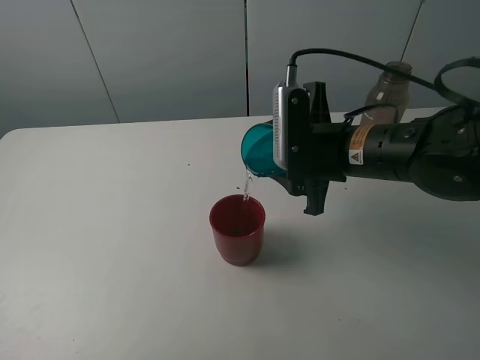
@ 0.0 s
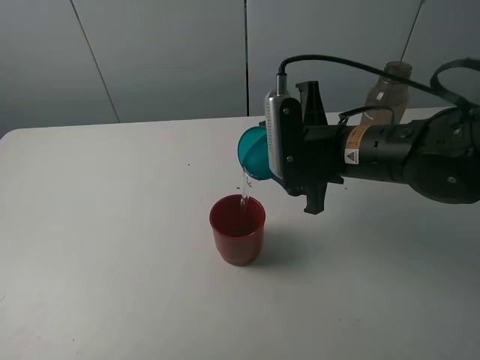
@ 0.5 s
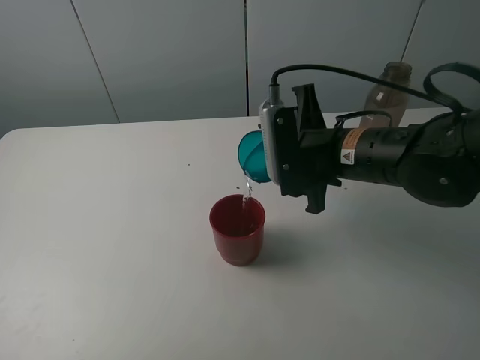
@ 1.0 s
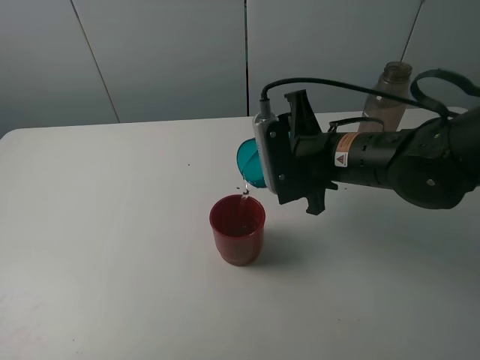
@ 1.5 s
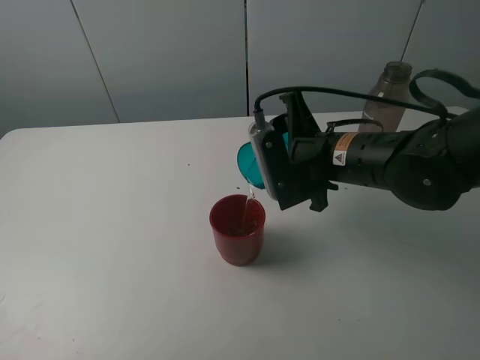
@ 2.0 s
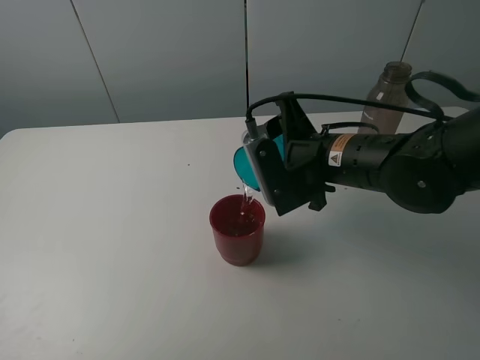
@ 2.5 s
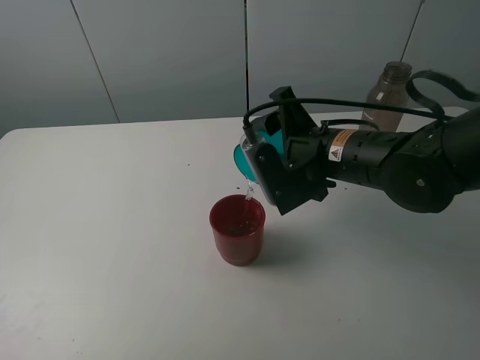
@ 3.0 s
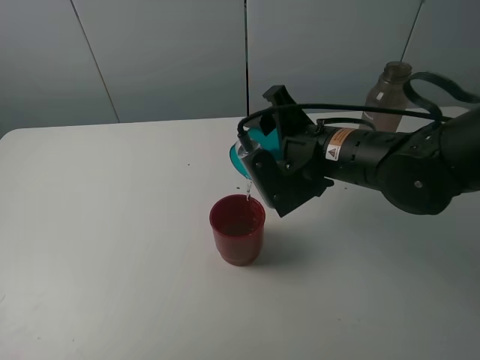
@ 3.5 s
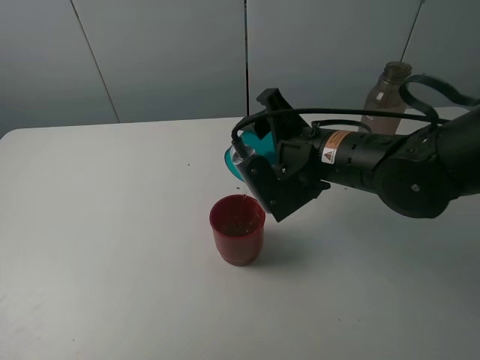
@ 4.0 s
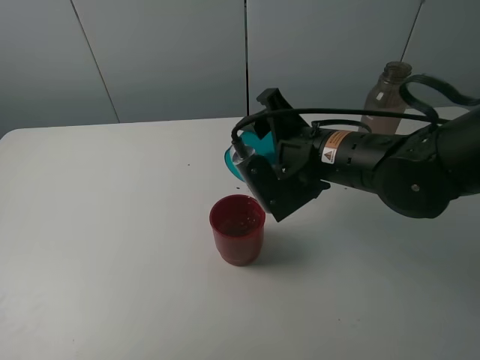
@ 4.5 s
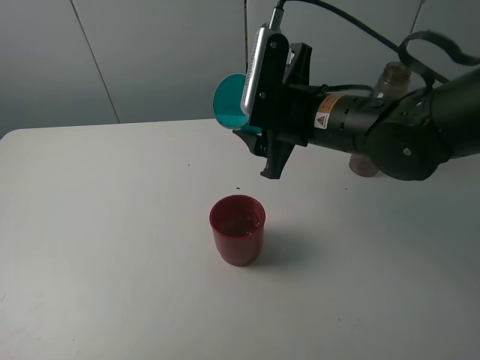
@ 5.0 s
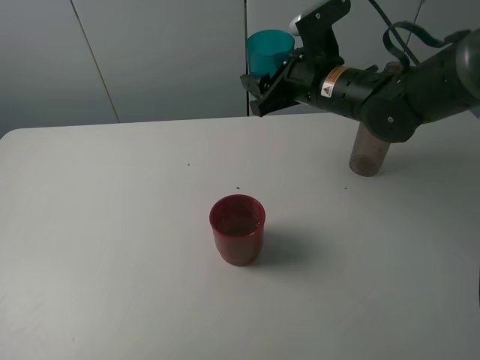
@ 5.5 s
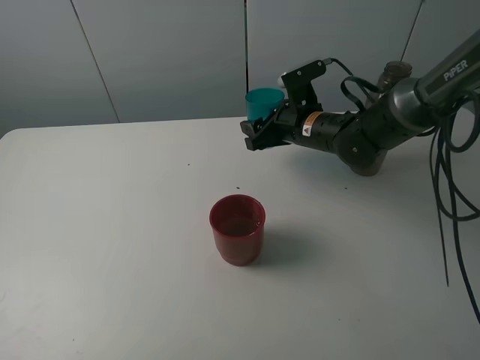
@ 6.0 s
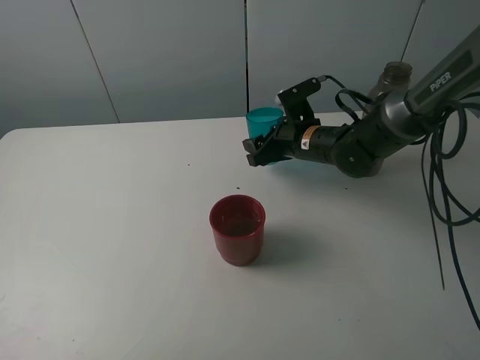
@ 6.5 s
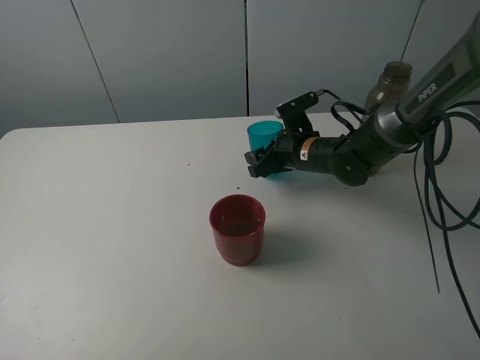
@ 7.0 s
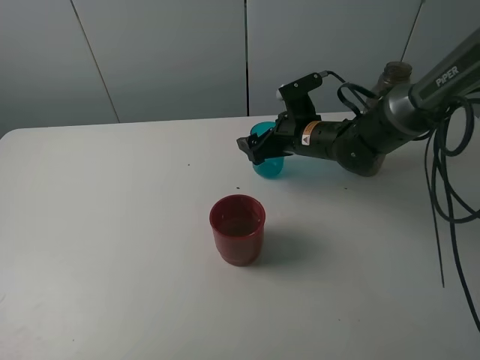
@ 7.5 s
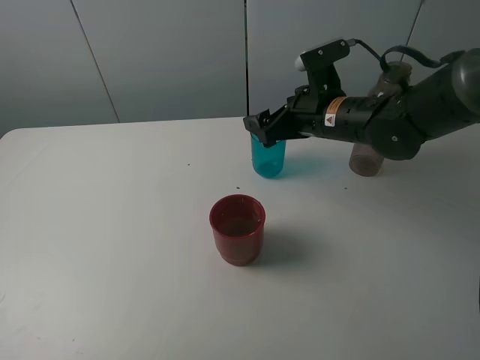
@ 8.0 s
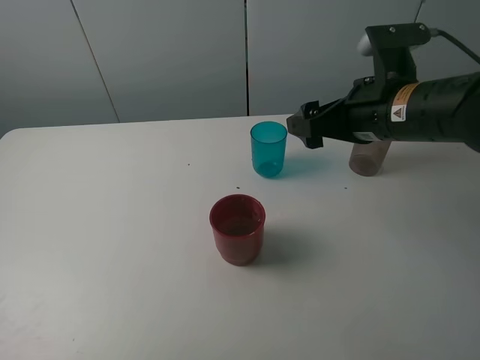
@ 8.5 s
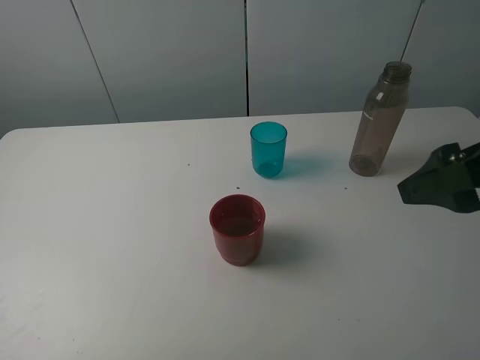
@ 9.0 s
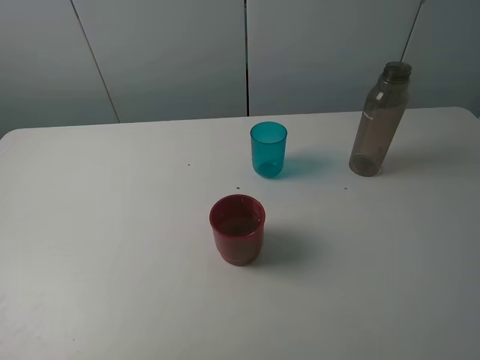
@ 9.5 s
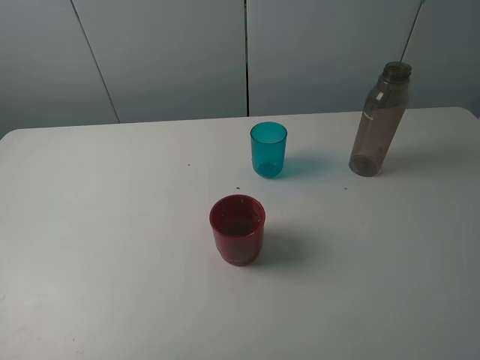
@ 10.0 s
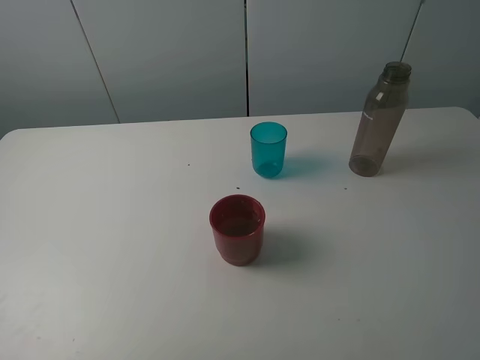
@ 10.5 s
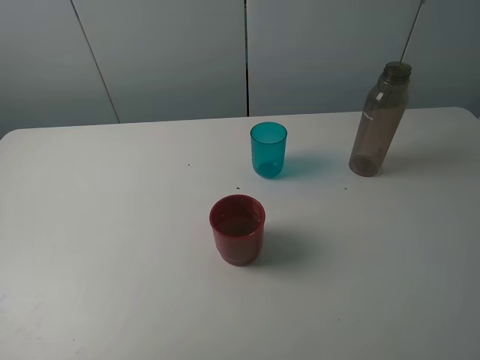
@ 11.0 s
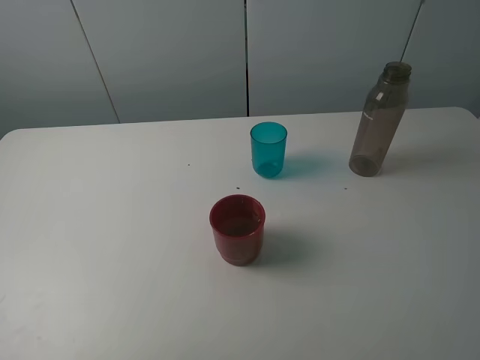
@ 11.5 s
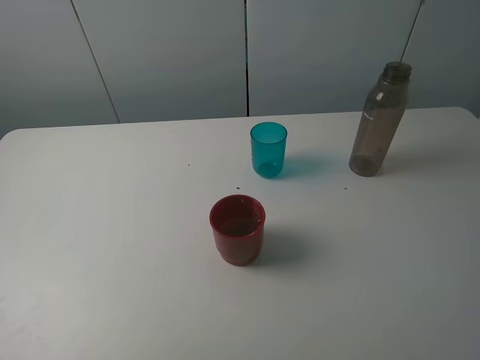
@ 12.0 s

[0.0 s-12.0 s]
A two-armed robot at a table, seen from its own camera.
Task of the whole recording: pick up the bottle and pour water into the cup, then pick up the cup containing water and pour it into another cup.
Step, 0.0 to 4.5 s: Pour water from blue cup to red cup with the right gripper.
Step, 5.0 to 7.5 s: Place the blue cup with the right gripper.
2.0 to 4.0 s: There are only small adjustments of the grippers.
4.0 to 6.0 s: The right gripper moves forward and downward, roughly 15 cm.
6.0 to 8.0 s: The right gripper shifts roughly 5 cm upward, and opens.
8.0 to 10.0 s: The right gripper heads backward, to the right and upward, covering some 40 cm.

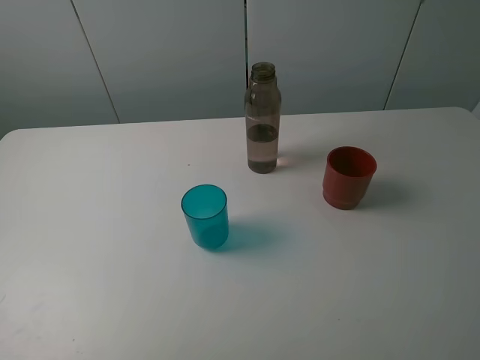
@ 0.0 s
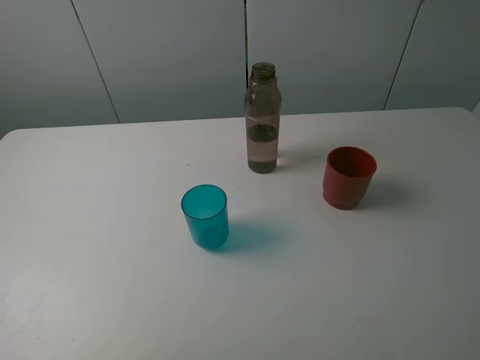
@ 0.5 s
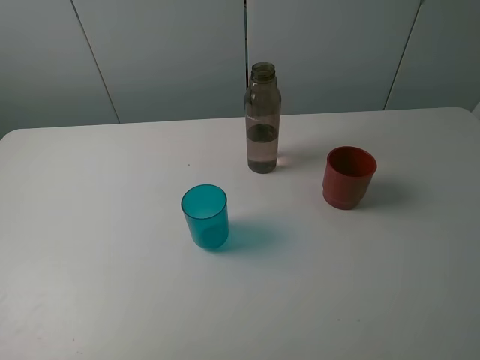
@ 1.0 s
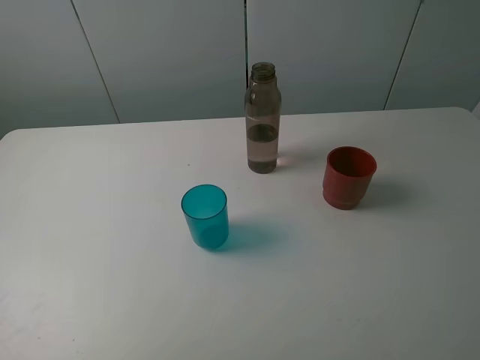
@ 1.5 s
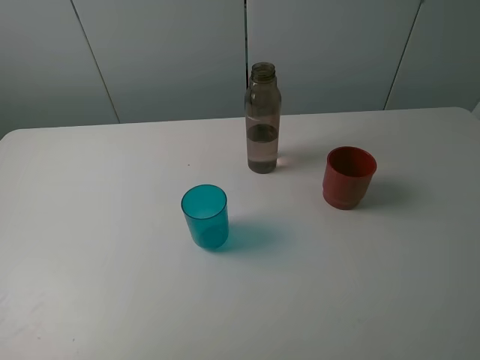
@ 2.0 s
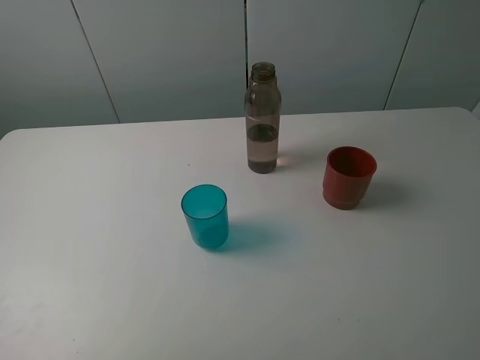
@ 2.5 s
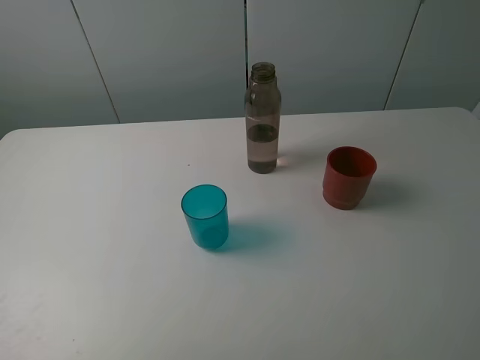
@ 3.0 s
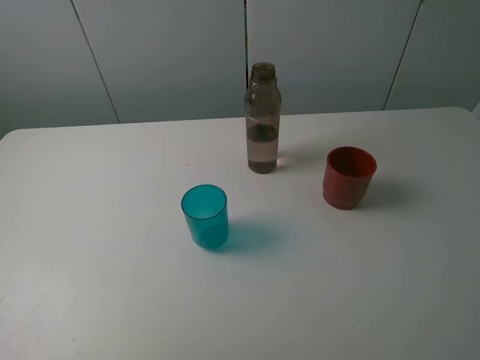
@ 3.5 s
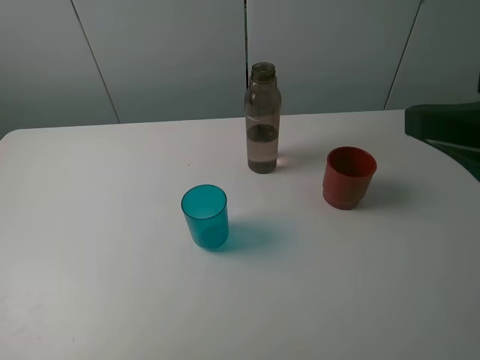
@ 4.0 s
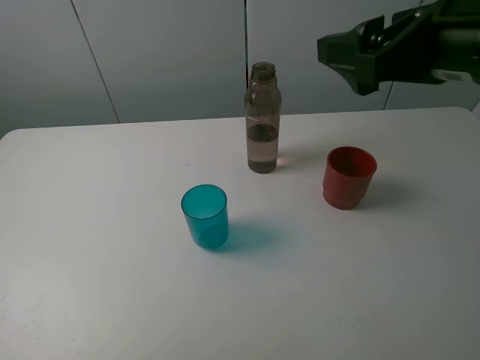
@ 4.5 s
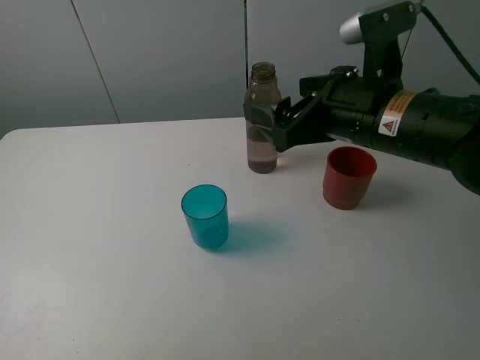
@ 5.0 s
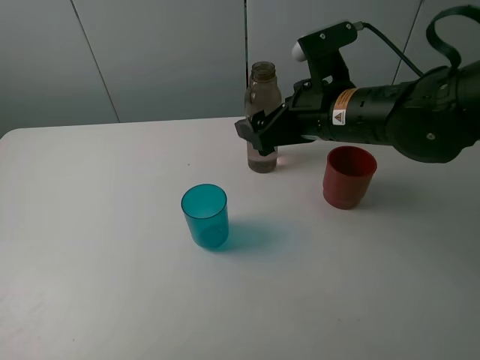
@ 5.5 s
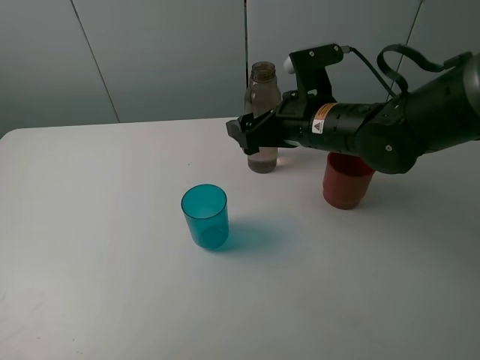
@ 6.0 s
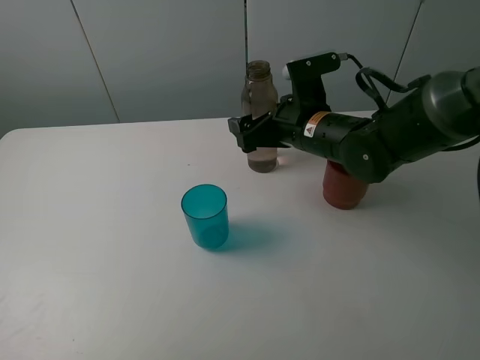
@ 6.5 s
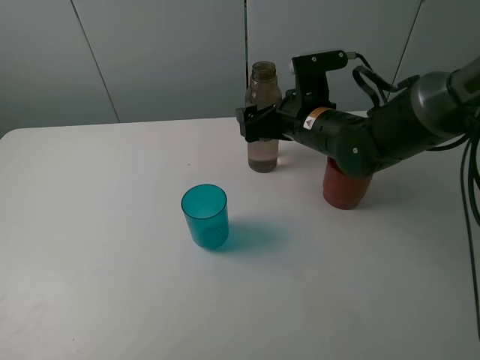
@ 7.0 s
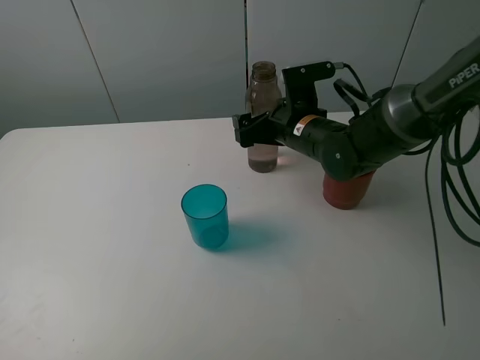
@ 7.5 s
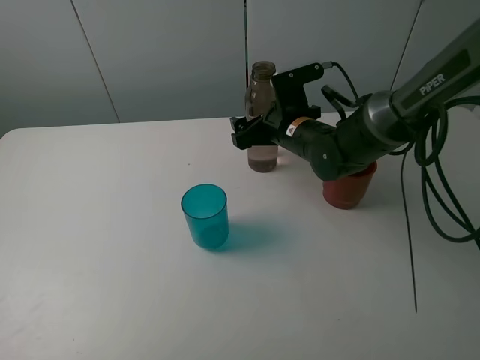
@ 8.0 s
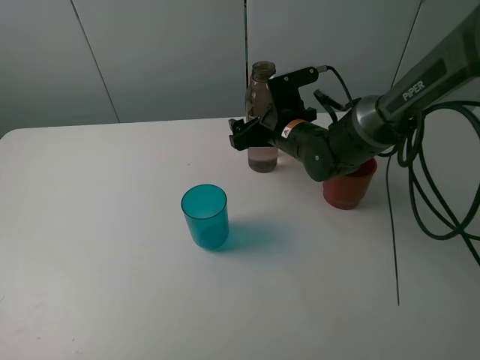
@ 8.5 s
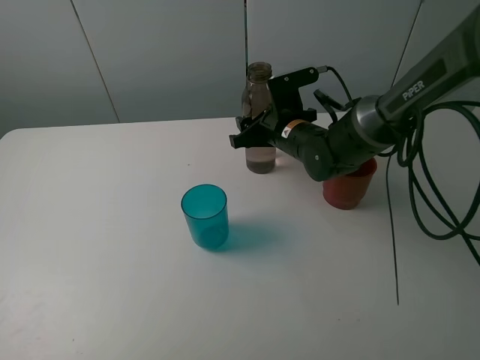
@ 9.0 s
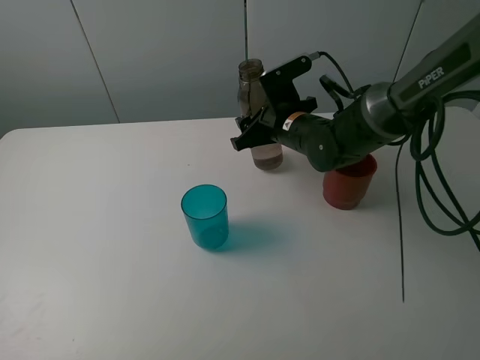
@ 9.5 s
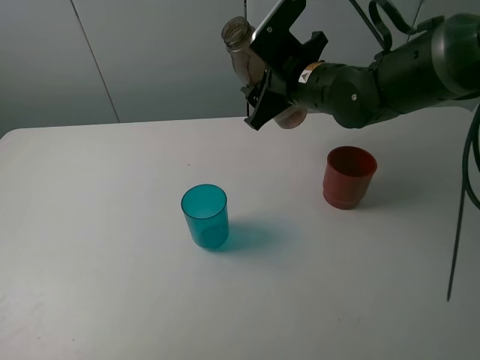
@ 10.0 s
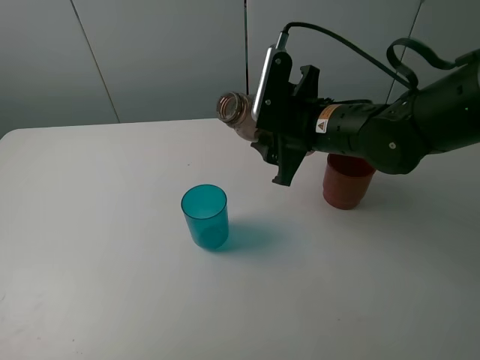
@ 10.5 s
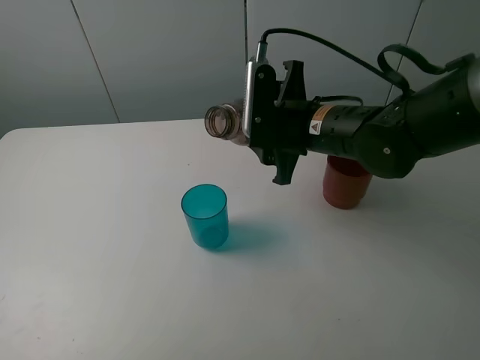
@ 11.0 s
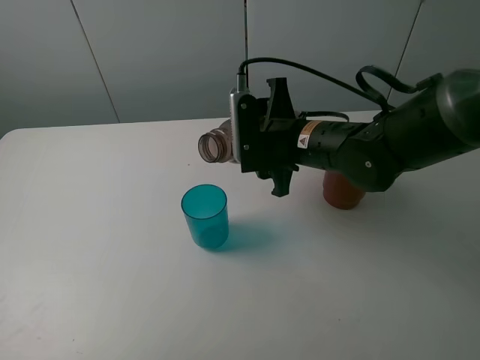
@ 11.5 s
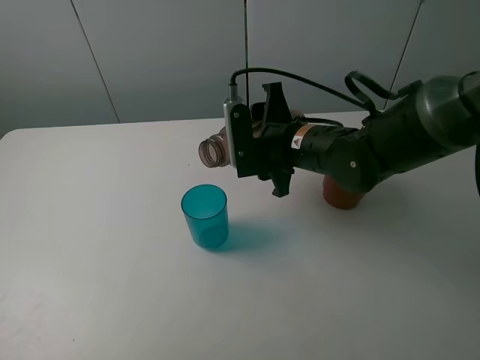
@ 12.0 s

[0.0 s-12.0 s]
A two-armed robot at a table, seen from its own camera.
Task of the whole recording: pick up the bottle and pour water into the cup, then pick up the cup containing water and pour it into another cup.
Step, 0.0 to 8.5 s: Grasp the brown bottle with the right gripper.
0.0 to 2.0 s: Neither gripper changes place.
2.0 to 4.0 s: The right gripper shifts about 10 cm forward.
4.0 to 6.0 s: The right gripper moves forward, downward and to the left, approximately 25 cm.
6.0 to 8.0 s: The right gripper travels forward and downward by approximately 10 cm.
8.0 to 10.0 s: The right gripper shifts roughly 10 cm upward, and closes its fingers.
10.0 to 12.0 s: The right gripper moves downward, roughly 5 cm.

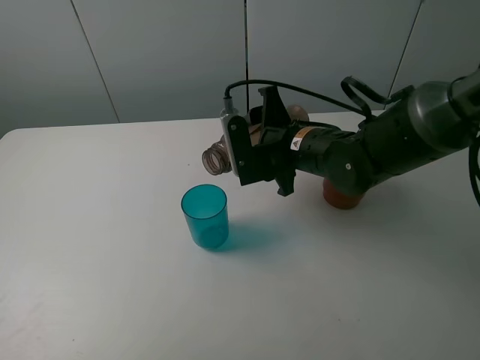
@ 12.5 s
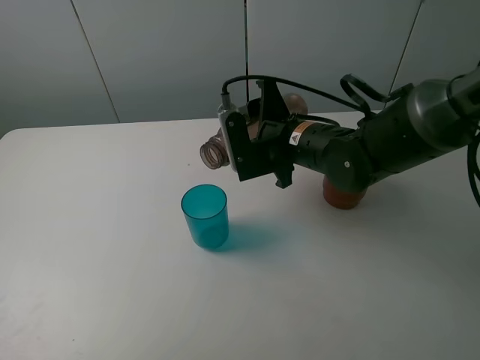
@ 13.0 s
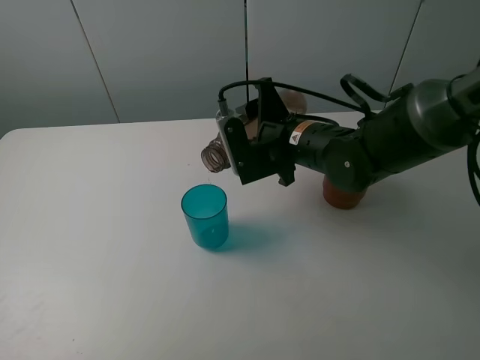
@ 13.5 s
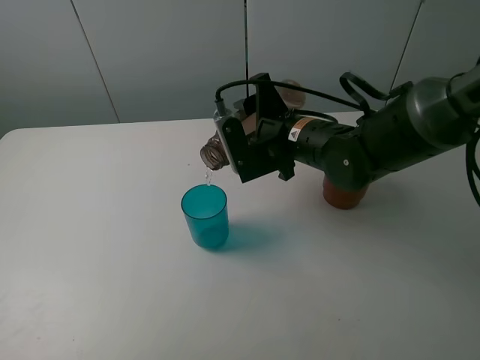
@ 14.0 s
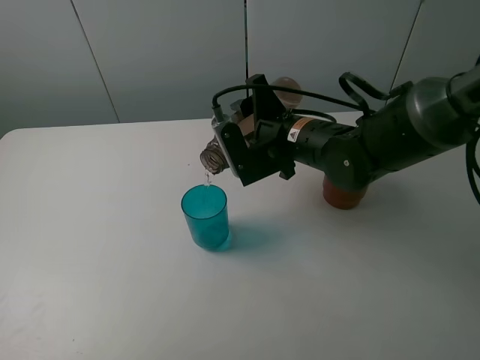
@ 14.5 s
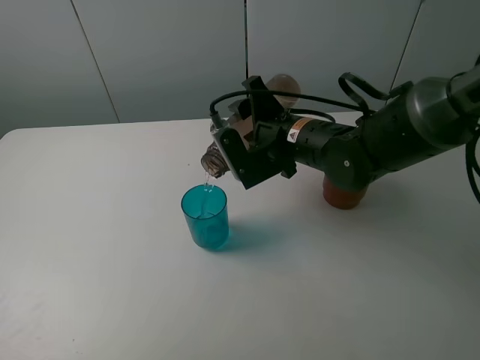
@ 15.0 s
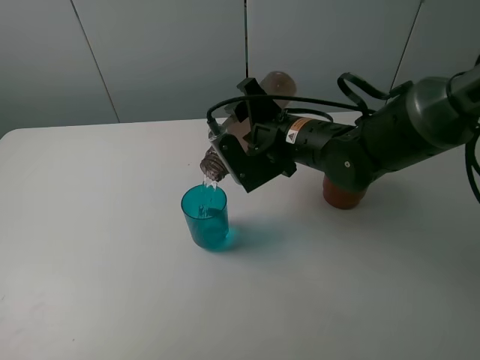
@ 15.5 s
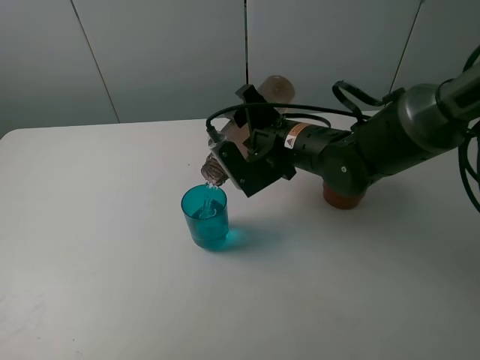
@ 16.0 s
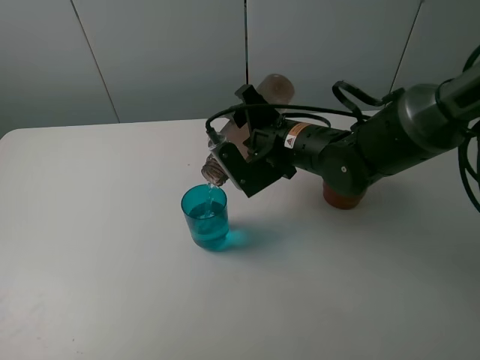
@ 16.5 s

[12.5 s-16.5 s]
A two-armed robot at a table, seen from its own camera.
Task of the whole recording: pick up the bottle and pour water into the cup, then pick up the cup containing water and pour it into another cup.
12.5 to 14.5 s: There are only small adjustments of the grippers.
14.5 to 16.5 s: The grippers make only small movements.
